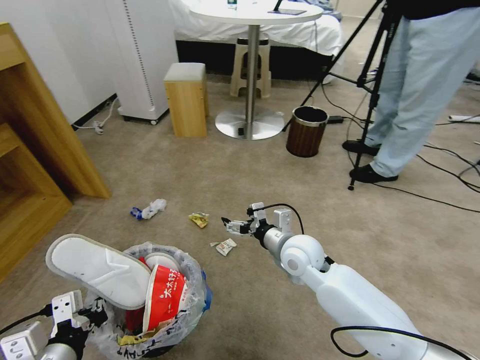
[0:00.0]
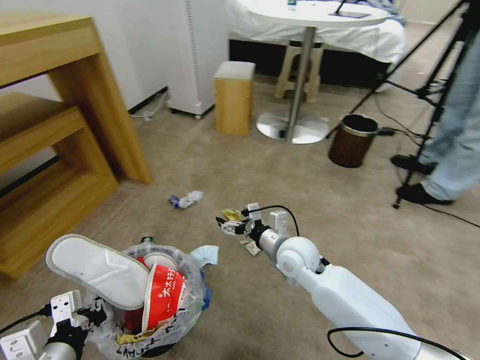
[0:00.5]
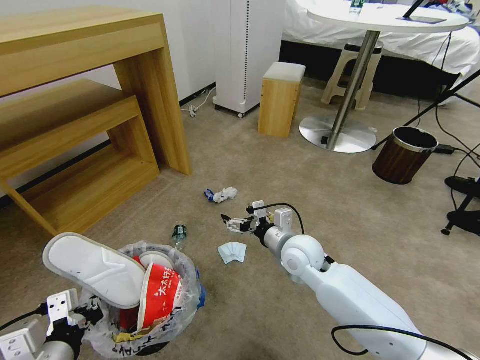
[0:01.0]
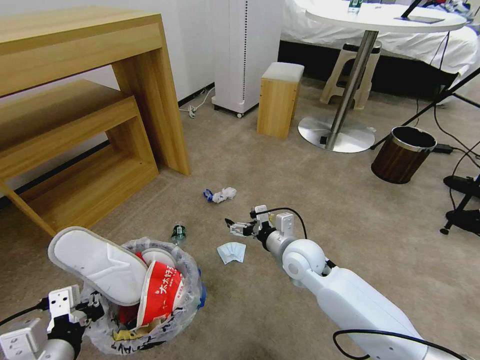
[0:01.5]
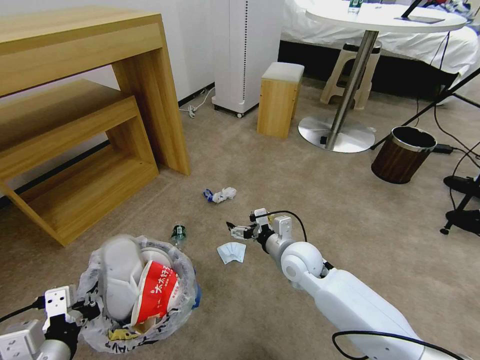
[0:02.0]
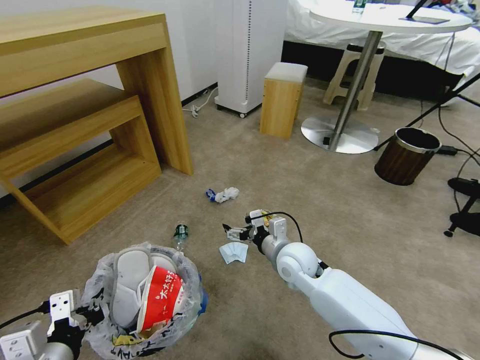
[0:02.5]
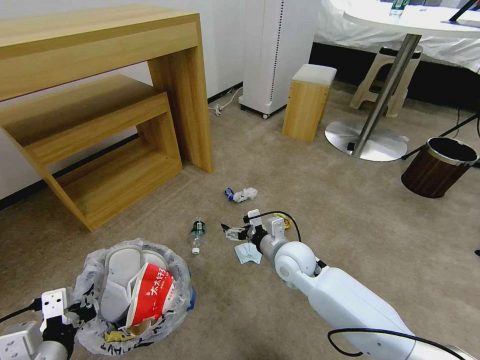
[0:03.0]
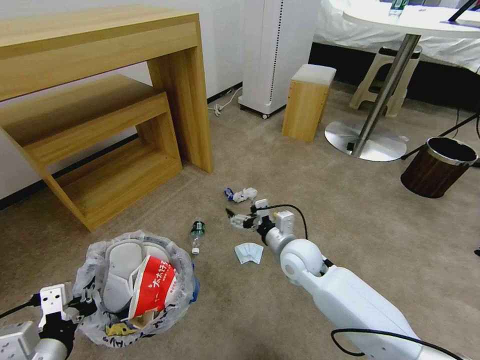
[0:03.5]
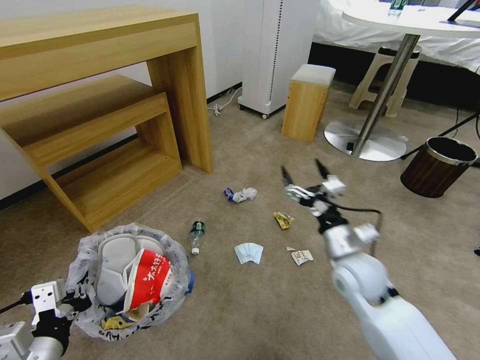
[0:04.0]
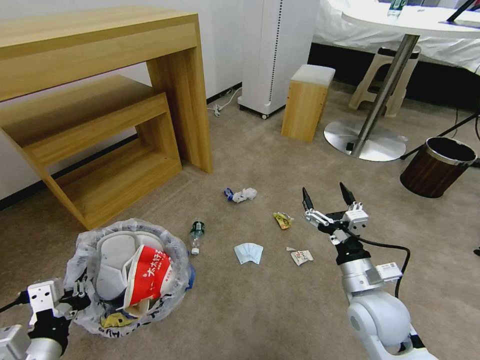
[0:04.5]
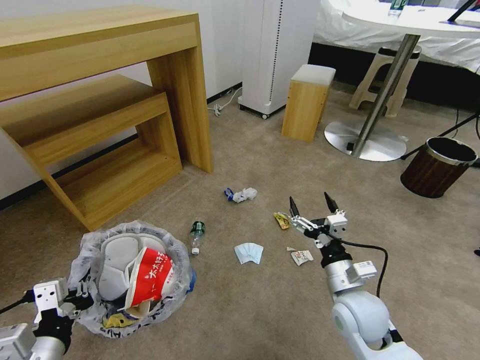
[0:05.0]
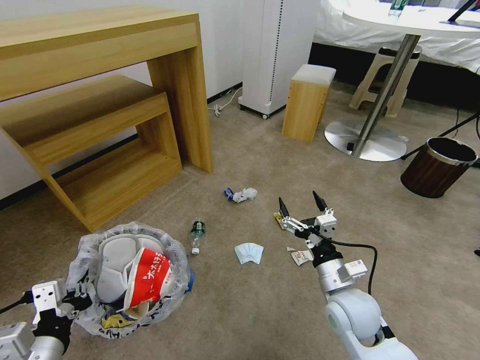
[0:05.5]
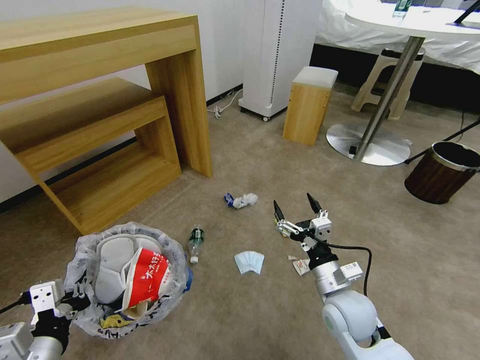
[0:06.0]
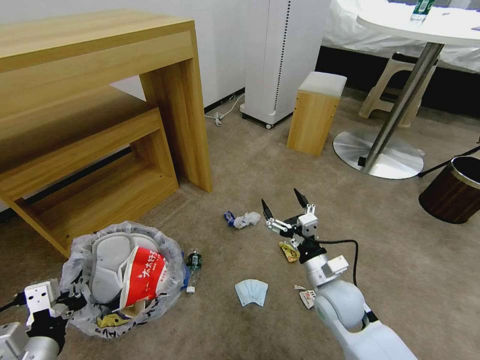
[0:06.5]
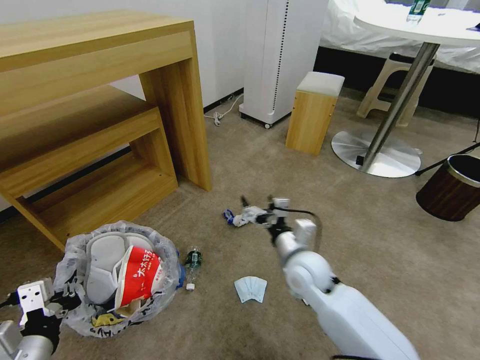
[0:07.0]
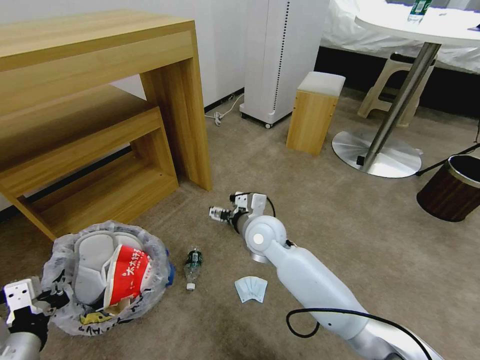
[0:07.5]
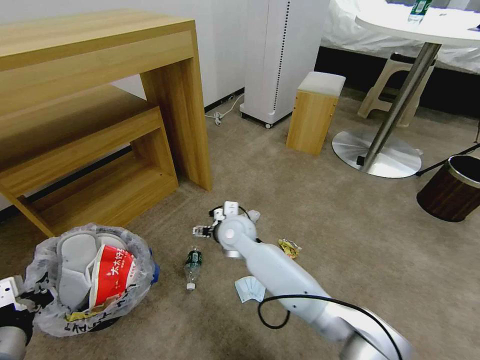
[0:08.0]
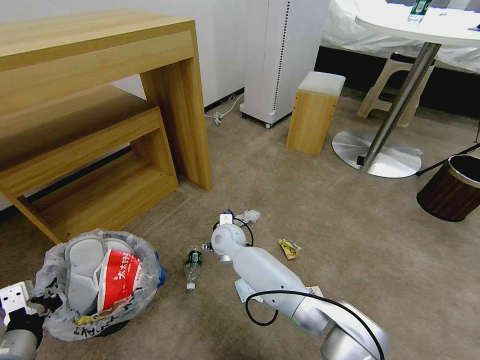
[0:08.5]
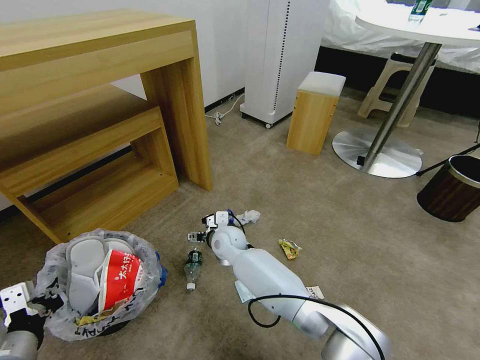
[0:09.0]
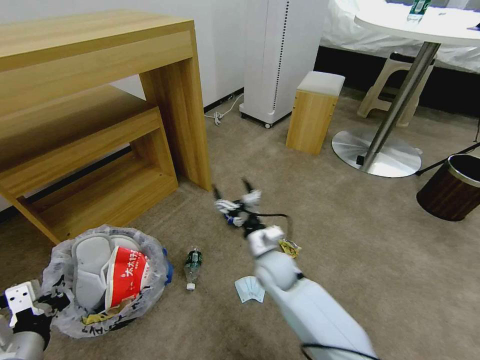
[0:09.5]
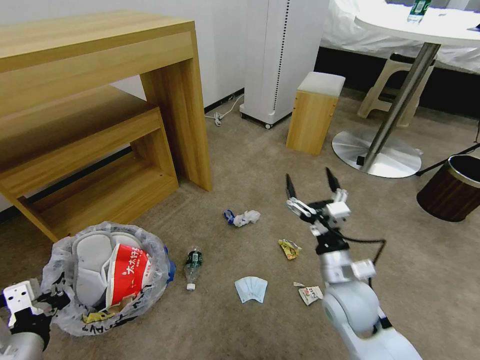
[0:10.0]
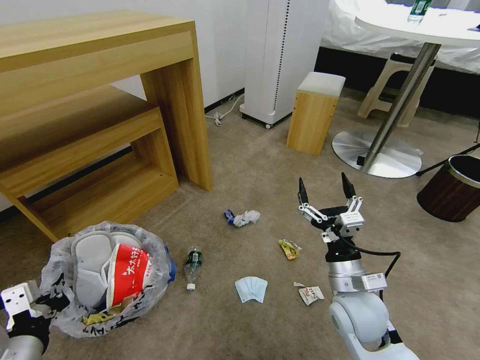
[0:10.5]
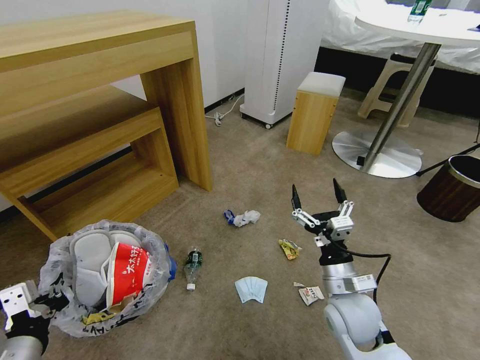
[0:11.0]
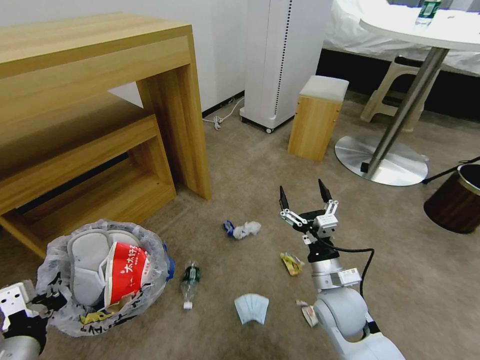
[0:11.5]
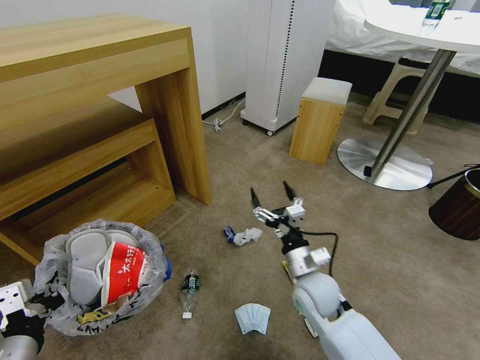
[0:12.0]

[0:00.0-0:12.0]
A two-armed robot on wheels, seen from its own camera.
Task of the whole recording: Pick up the trash bin and place the garbage on the floor into it.
0:02.0 to 0:04.0: The right gripper moves to the right and backward, approximately 10 cm.
0:04.0 to 0:06.0: The right gripper is displaced downward and backward by some 10 cm.
0:06.0 to 0:08.0: The left gripper travels to the left by some 5 cm. The right gripper moves to the left and forward, roughly 30 cm.
0:08.0 to 0:10.0: The right gripper goes roughly 30 cm to the right and backward.
0:10.0 to 0:12.0: The right gripper changes place by about 5 cm.

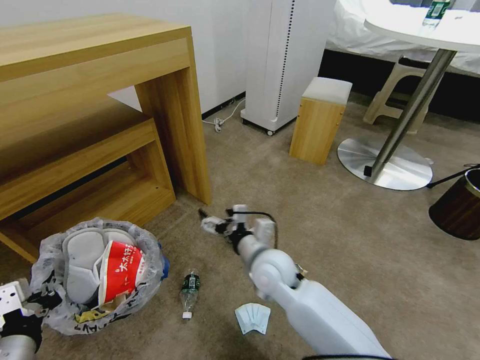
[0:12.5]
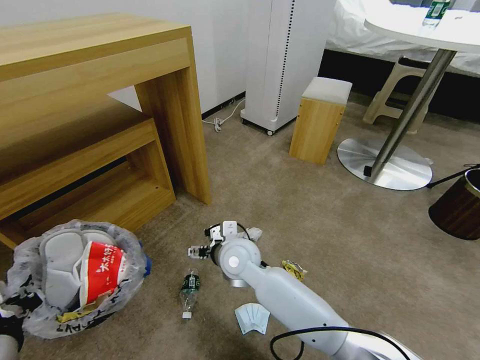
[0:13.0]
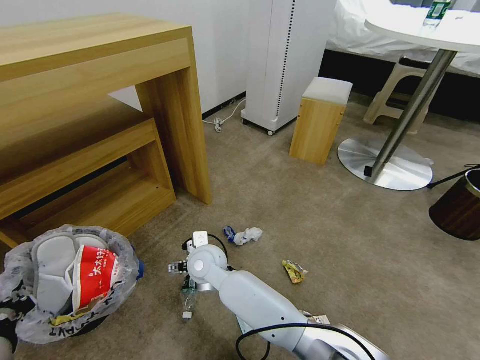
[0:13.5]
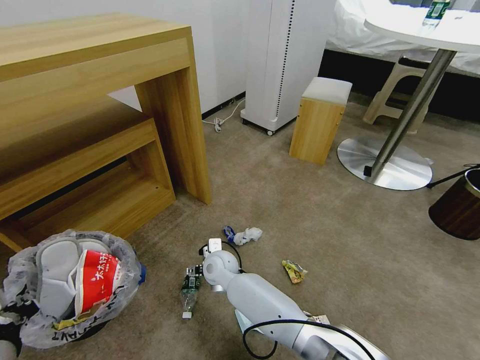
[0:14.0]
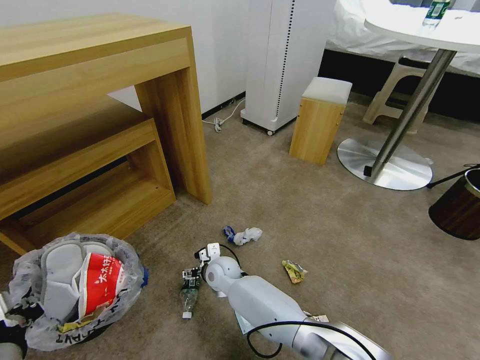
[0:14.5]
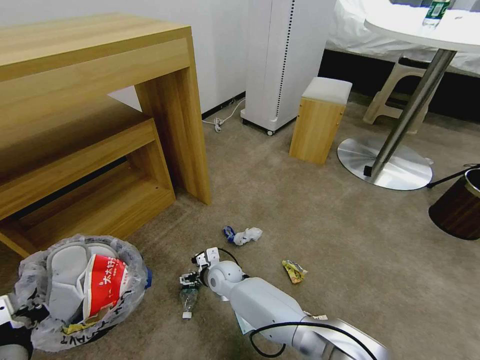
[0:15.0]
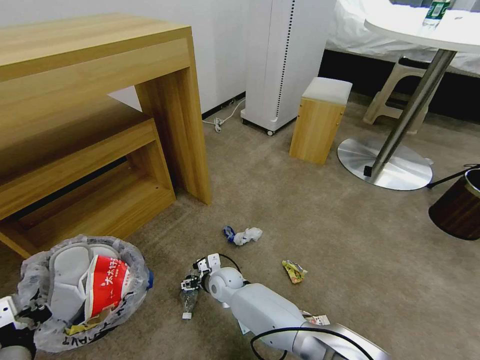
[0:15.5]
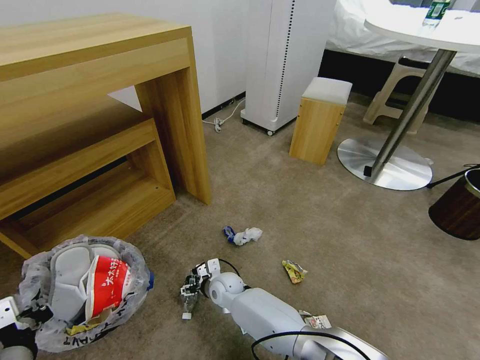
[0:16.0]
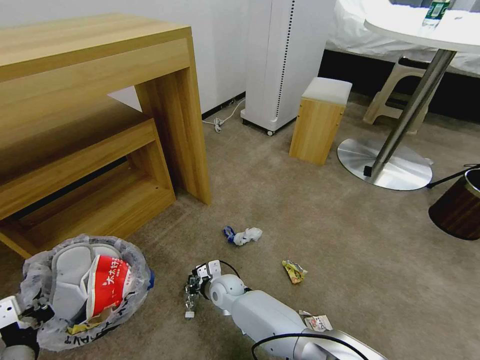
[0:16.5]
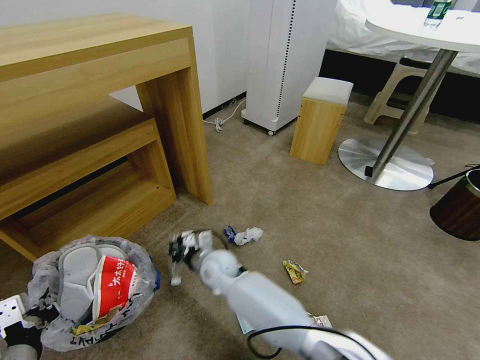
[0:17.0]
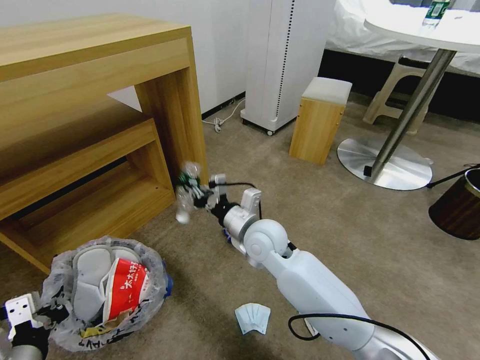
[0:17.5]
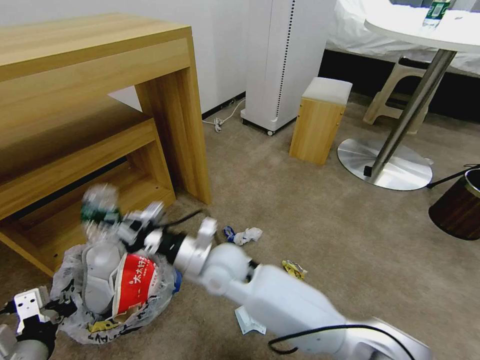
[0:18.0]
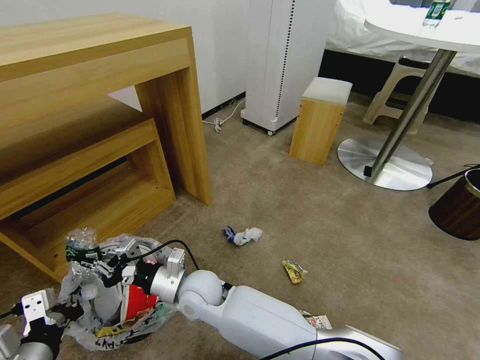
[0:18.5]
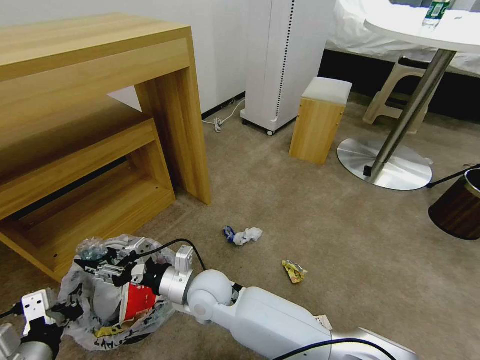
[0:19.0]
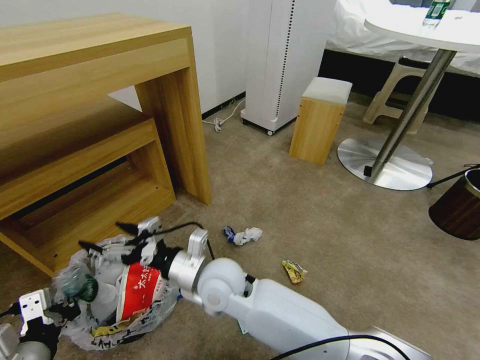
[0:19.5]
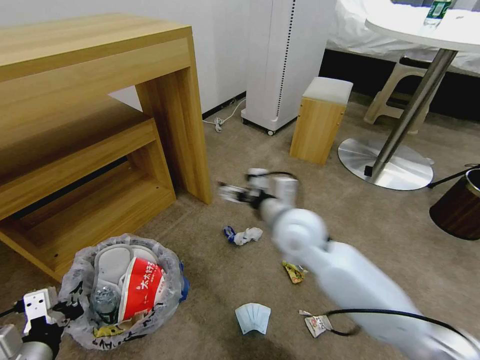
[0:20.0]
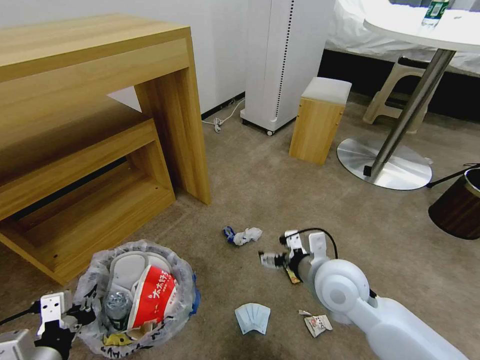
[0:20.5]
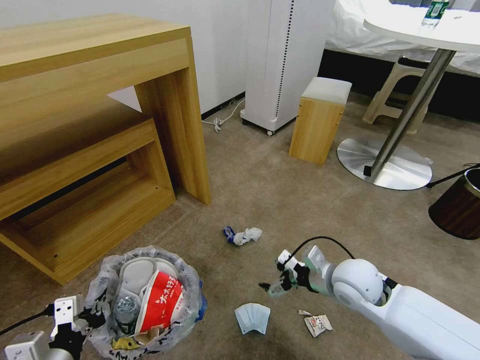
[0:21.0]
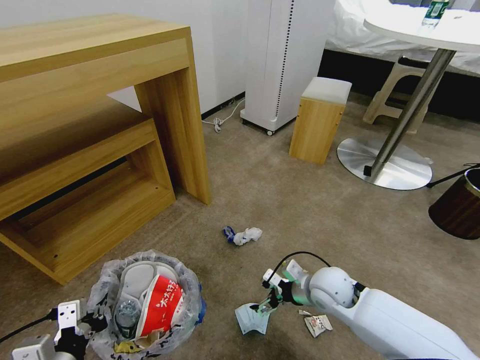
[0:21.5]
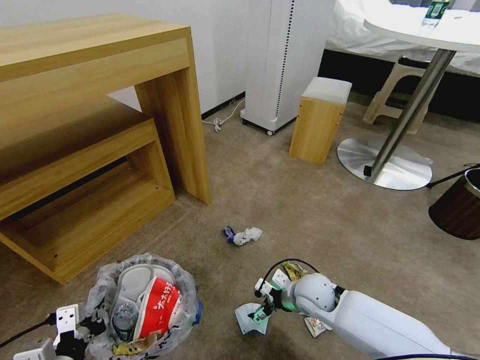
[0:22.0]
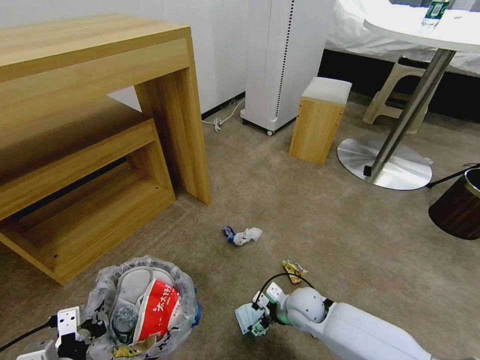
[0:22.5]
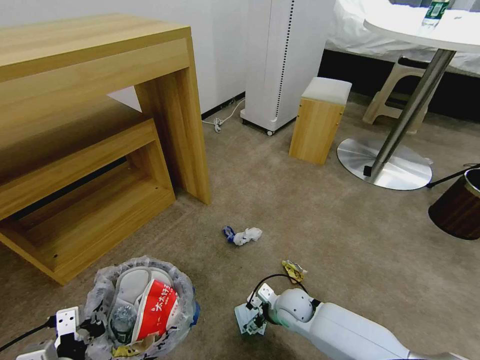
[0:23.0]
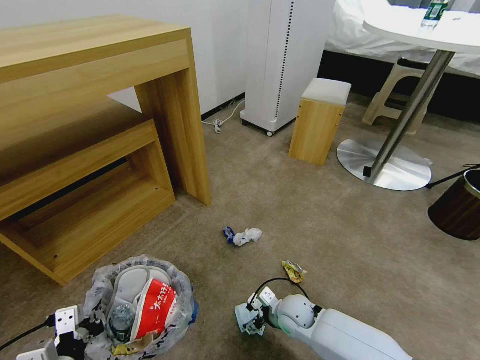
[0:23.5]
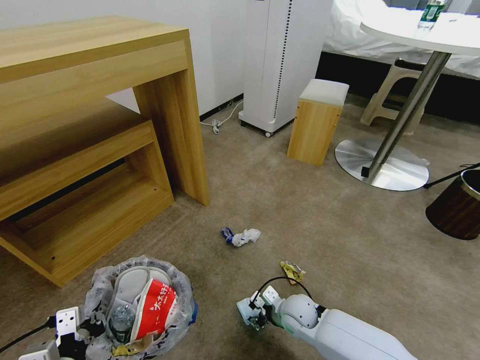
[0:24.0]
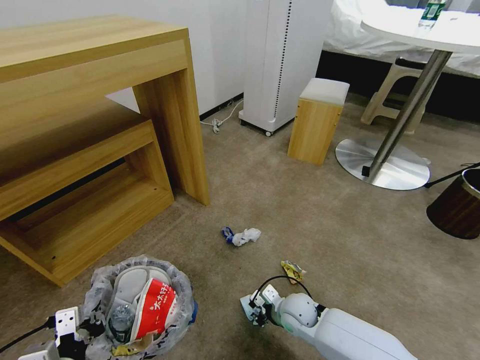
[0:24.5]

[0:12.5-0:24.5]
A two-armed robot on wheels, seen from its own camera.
Task of the whole recording: Pick up the trash bin and place the garbage on the floor into it.
0:12.5 to 0:14.5: The right gripper is displaced downward, to the left and forward by roughly 20 cm.
0:14.5 to 0:16.5: The right gripper shifts some 5 cm downward, and closes up.
0:16.5 to 0:18.5: The right gripper moves upward and backward, about 20 cm.
0:18.5 to 0:20.5: The right gripper moves to the right, roughly 30 cm, and opens up.
0:20.5 to 0:22.5: The right gripper moves downward, approximately 20 cm.
0:22.5 to 0:24.5: The right gripper closes its fingers.

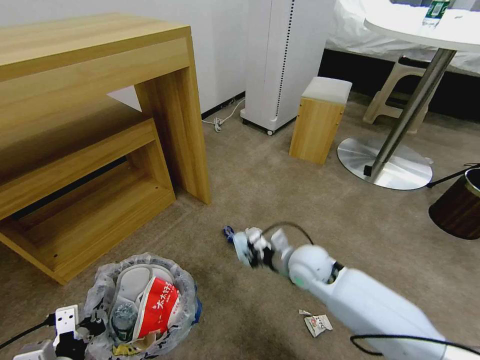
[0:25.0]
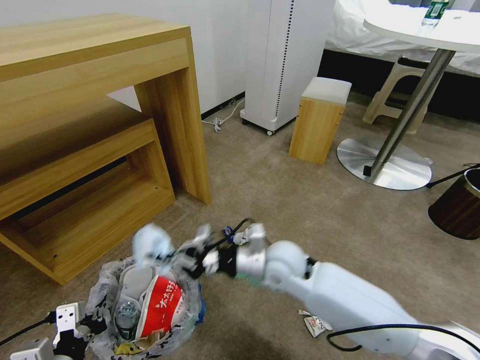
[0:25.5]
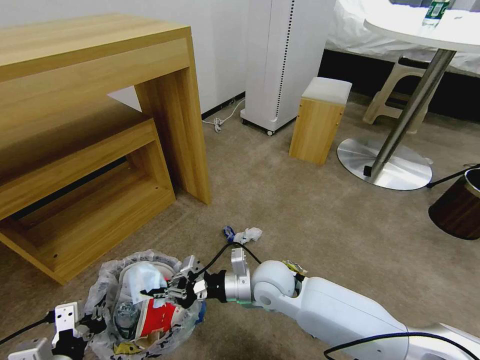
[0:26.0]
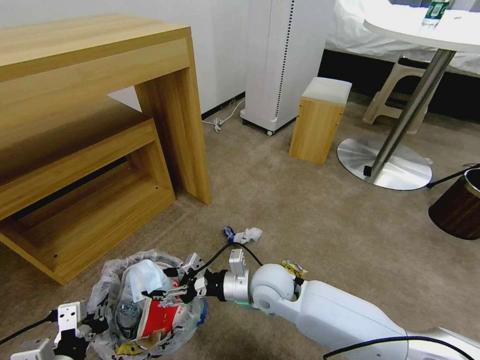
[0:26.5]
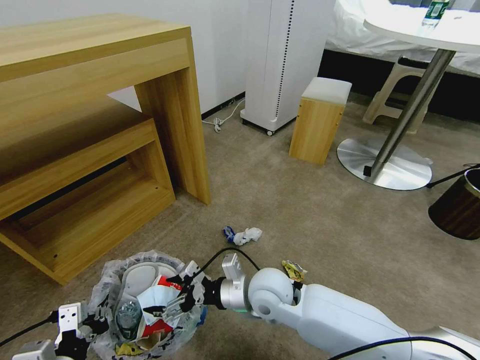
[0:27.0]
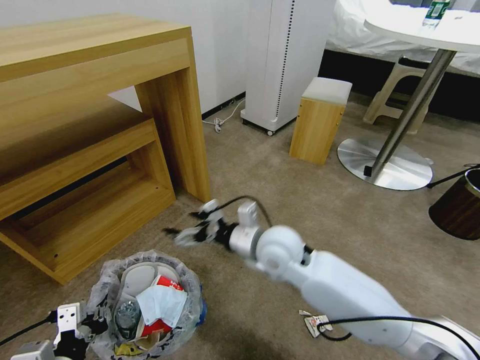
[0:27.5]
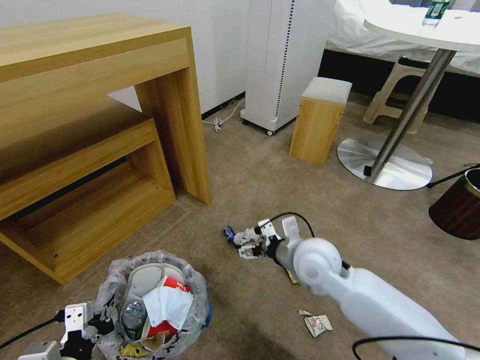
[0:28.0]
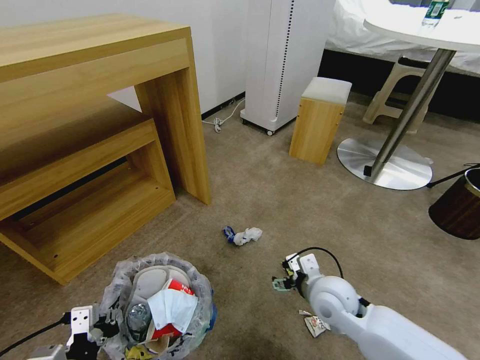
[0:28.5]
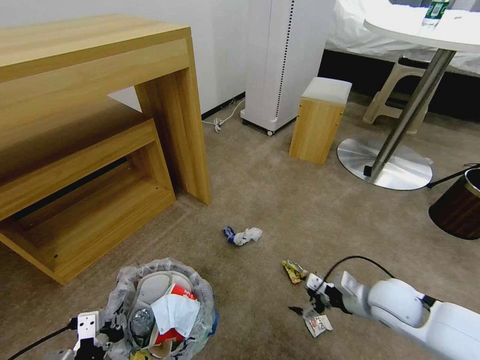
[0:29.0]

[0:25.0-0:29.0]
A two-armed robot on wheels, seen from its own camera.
Task of the whole recording: Pick up the trash bin and place the garbage on the floor into it.
0:25.0 to 0:27.0: The right gripper moves to the left and backward, roughly 10 cm, and opens.
0:27.0 to 0:29.0: The right gripper is displaced to the right by roughly 25 cm.
